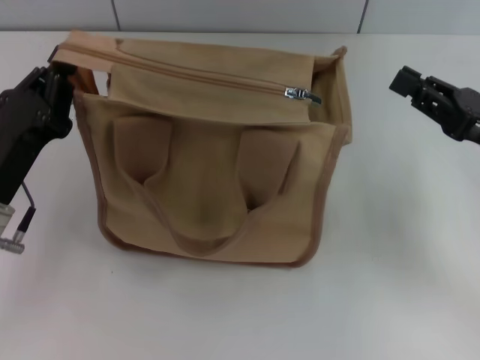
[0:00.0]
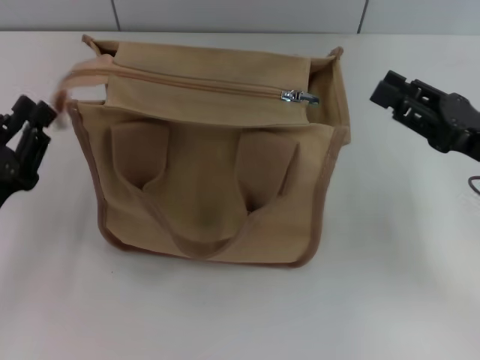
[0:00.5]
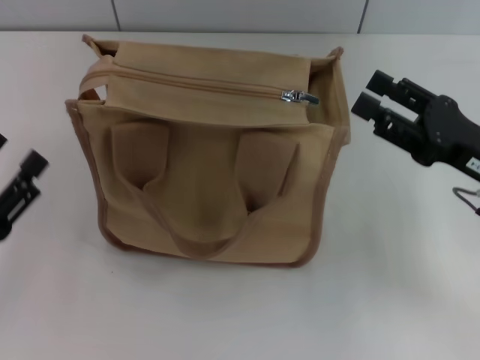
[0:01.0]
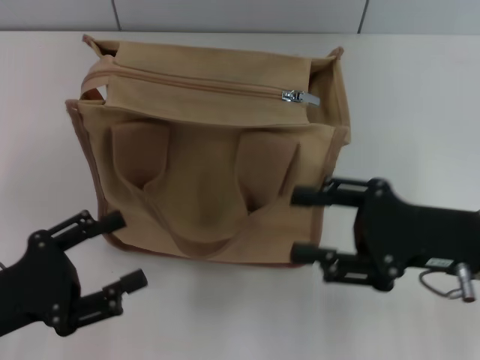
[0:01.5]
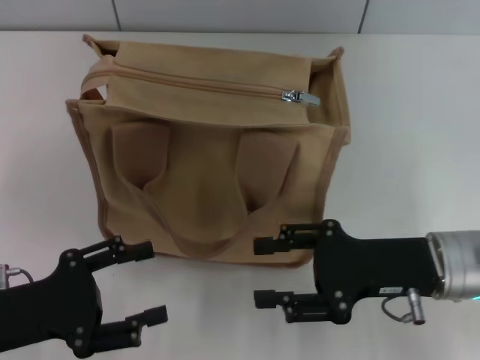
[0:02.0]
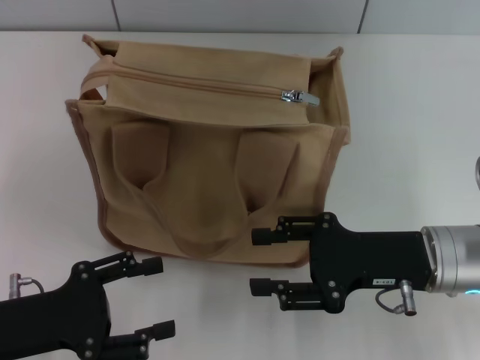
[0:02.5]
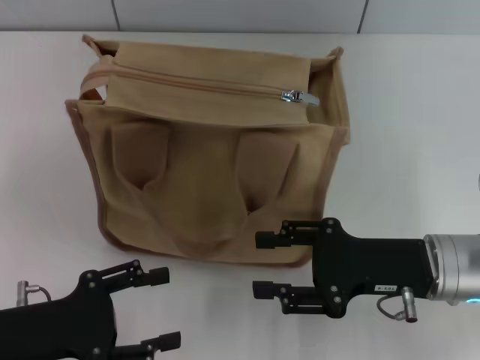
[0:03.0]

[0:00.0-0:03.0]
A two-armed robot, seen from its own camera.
Step, 0:00.0 to 0:00.5: Grab the zipper with your left hand.
0:00.0 to 0:01.5: The right gripper heads to the left, covering some 5 cm, and opens, while the left gripper goes some 10 cm backward, and opens its fingers.
0:01.5 to 0:03.0: The grippers move only a little.
